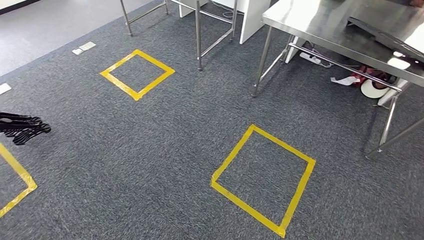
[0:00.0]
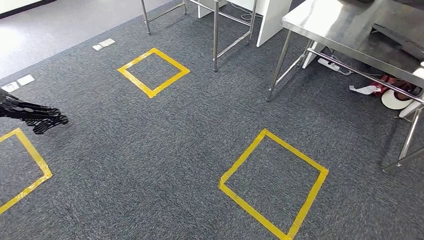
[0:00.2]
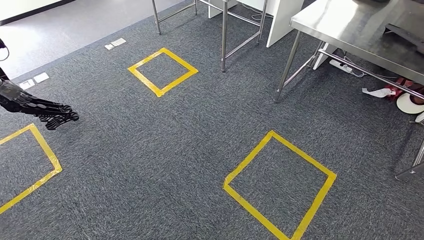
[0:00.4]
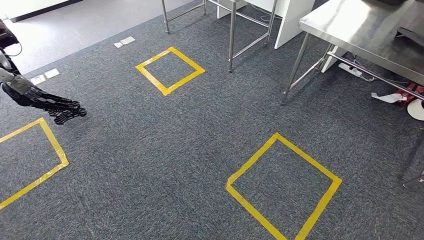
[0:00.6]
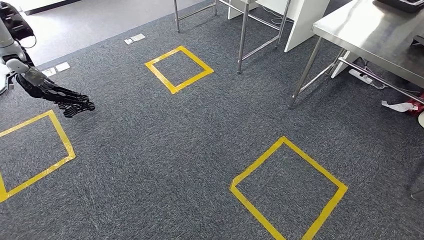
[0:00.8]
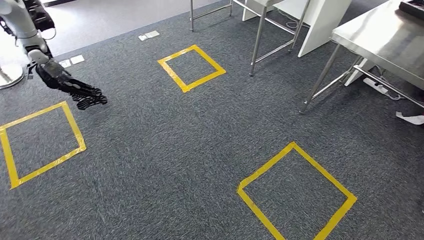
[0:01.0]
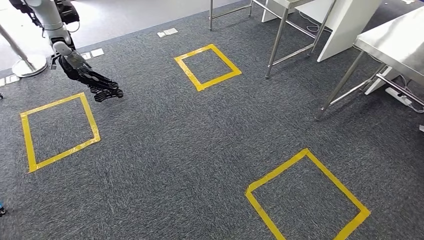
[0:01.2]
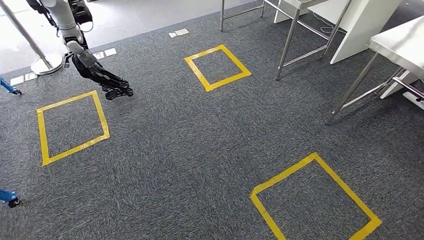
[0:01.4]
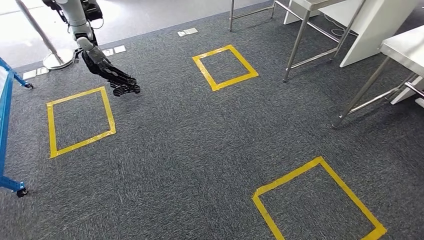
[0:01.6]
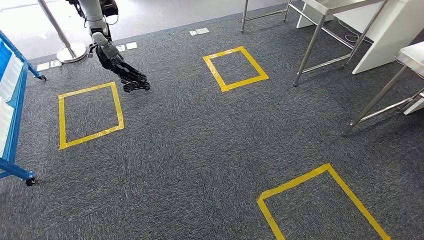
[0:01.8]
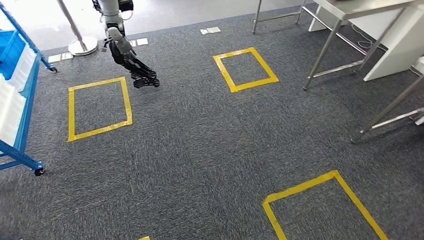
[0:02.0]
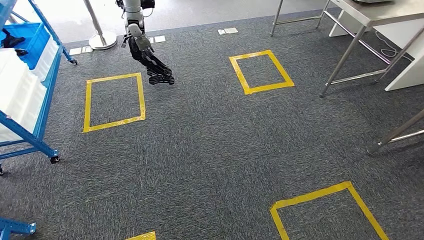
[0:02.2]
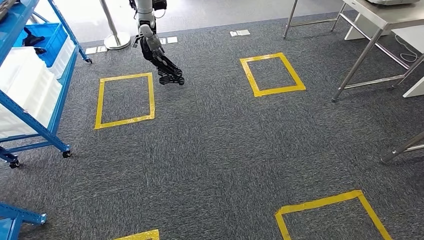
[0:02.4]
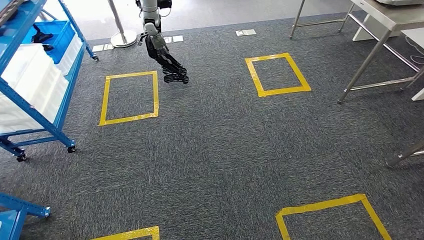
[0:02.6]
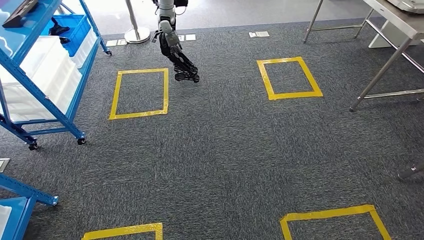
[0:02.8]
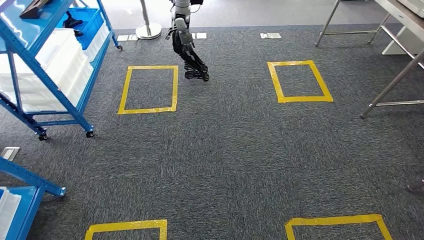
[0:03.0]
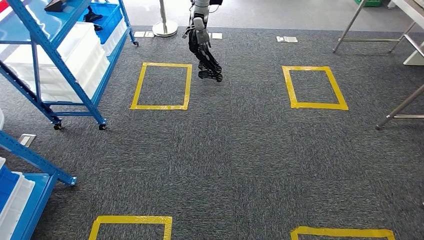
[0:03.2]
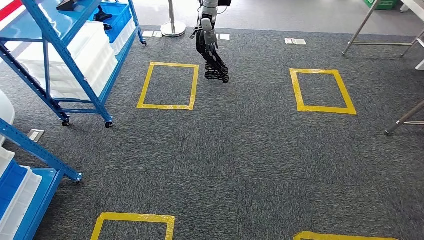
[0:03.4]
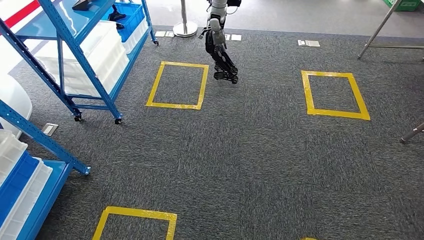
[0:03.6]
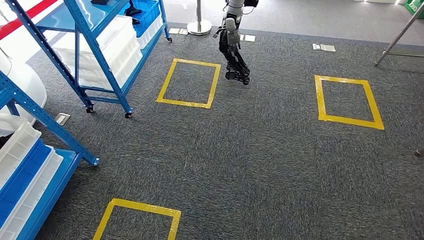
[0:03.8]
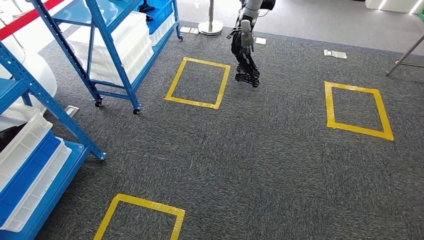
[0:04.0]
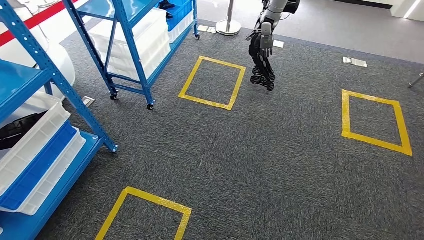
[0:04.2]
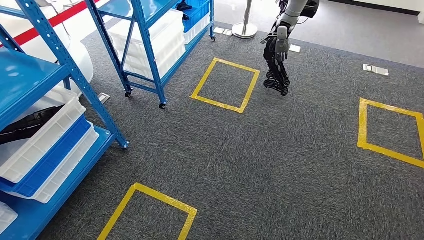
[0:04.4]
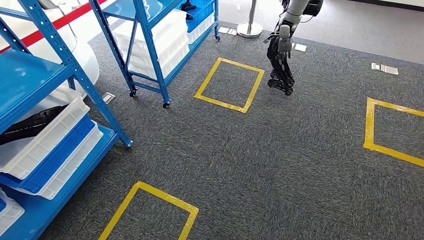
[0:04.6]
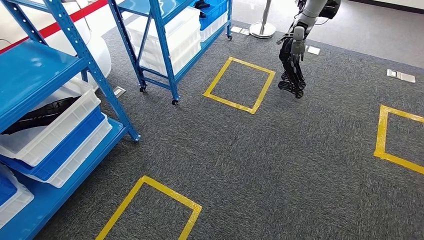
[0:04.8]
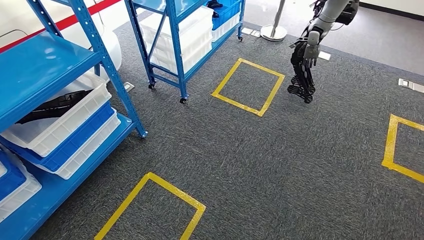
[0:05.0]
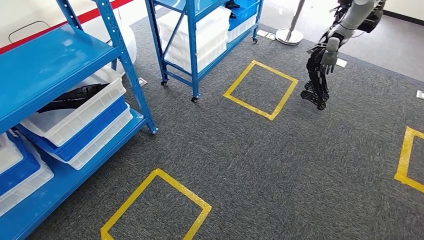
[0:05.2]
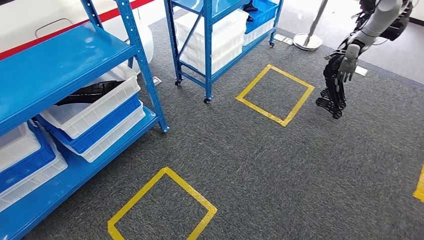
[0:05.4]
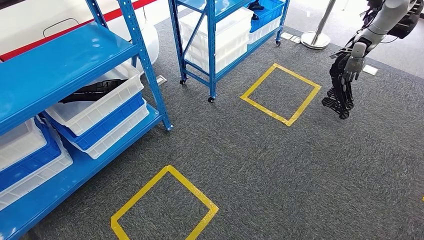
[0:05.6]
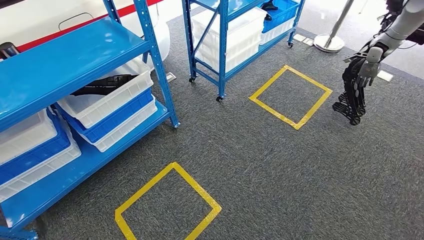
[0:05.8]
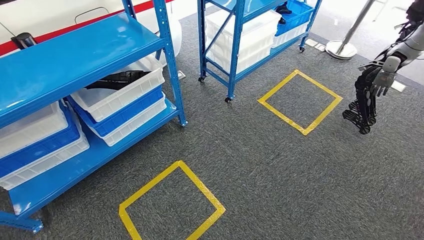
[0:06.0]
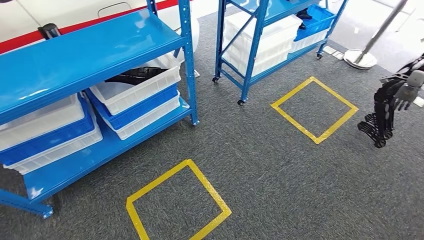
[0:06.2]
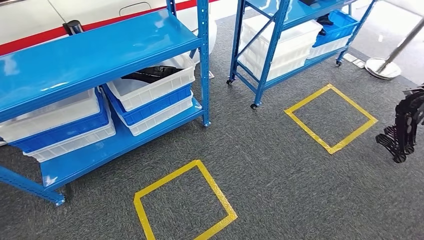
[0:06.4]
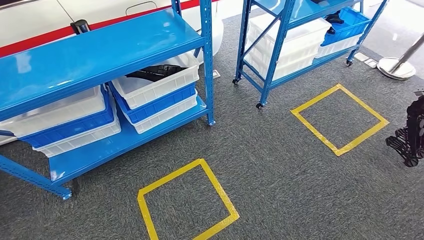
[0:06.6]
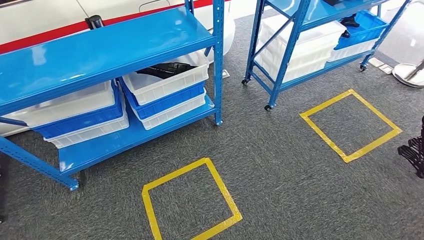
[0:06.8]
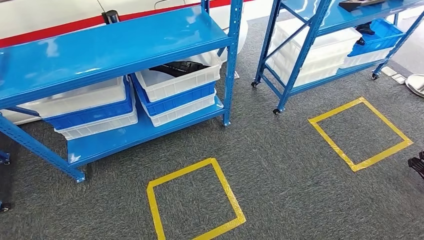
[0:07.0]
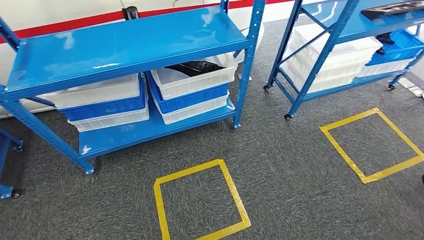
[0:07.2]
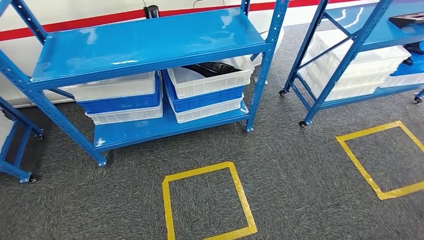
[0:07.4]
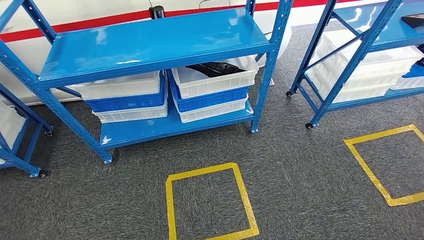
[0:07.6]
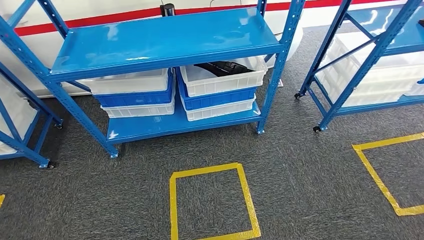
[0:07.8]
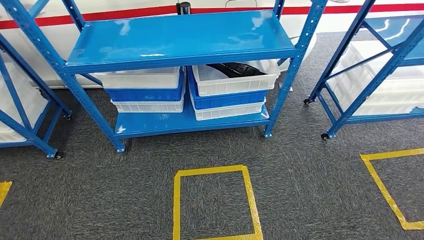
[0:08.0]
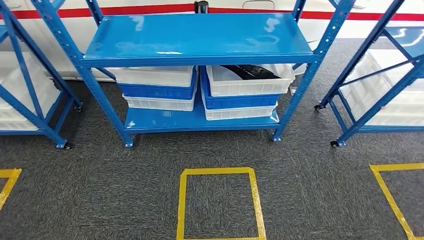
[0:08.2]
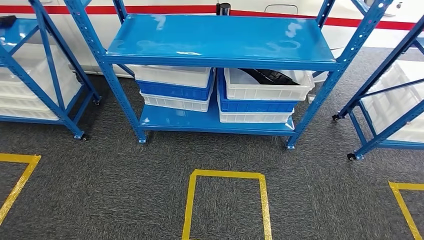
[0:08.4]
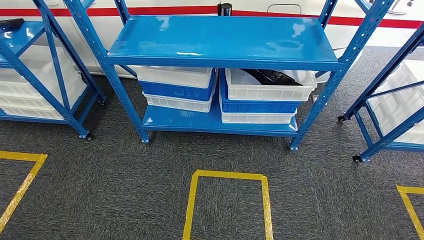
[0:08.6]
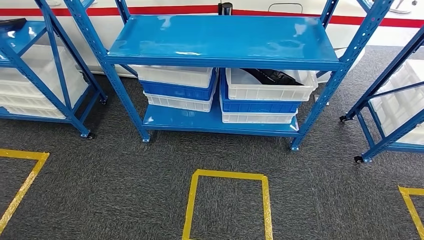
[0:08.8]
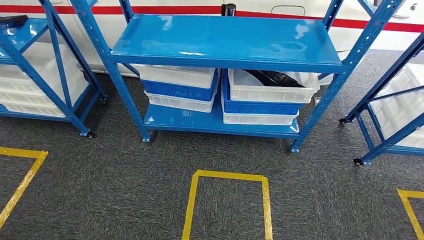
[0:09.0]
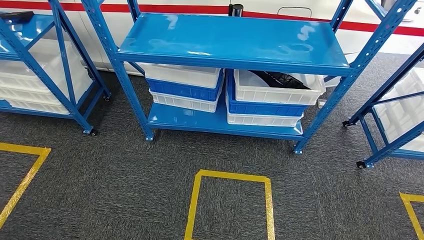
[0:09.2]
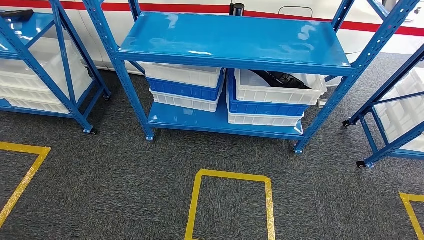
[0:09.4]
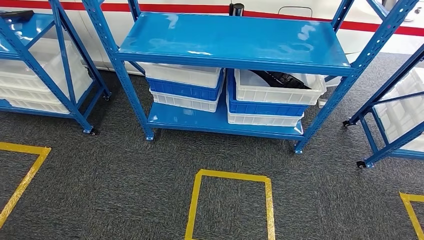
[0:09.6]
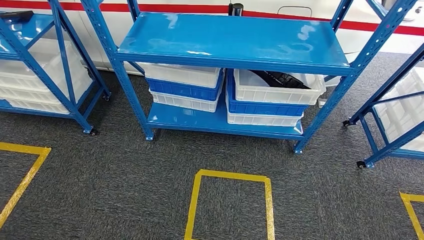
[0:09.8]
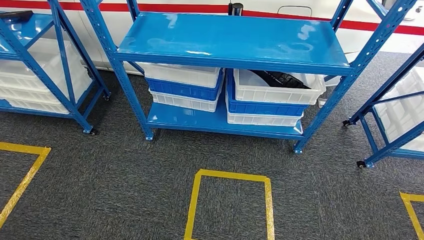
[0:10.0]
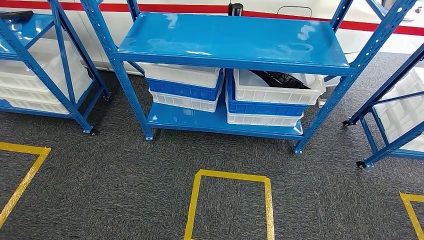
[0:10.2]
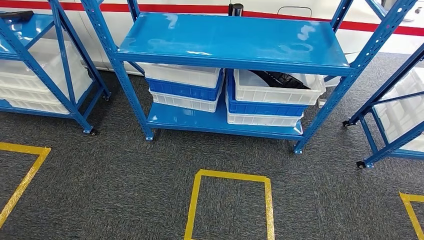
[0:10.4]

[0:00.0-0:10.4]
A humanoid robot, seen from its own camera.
Step, 0:00.0 to 0:10.4: Move to the initial position of the shelf.

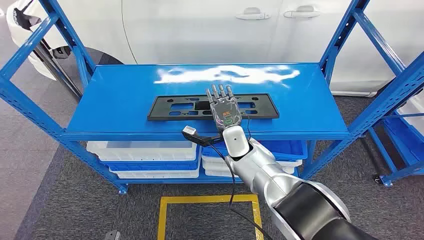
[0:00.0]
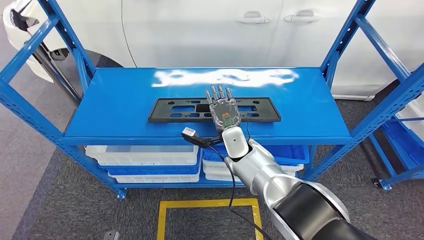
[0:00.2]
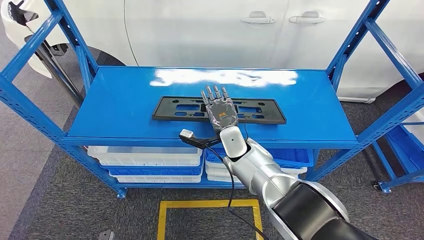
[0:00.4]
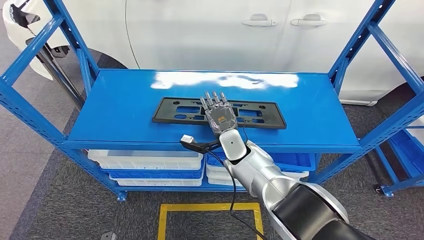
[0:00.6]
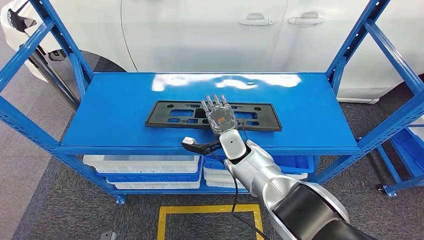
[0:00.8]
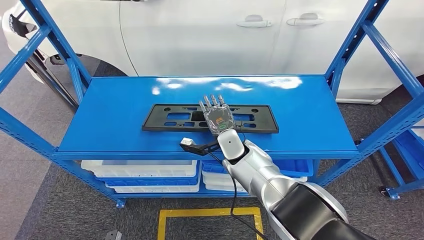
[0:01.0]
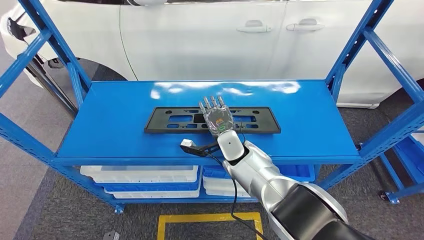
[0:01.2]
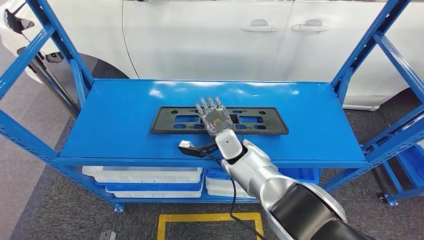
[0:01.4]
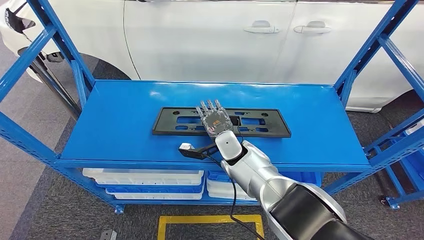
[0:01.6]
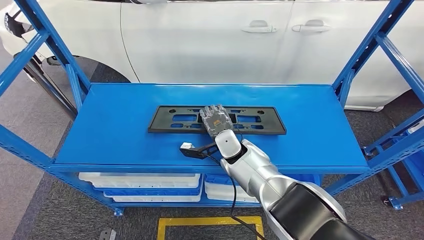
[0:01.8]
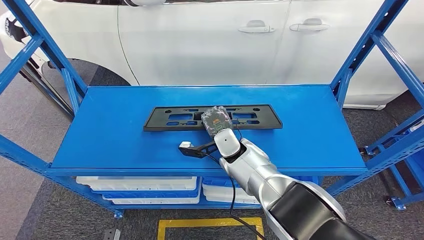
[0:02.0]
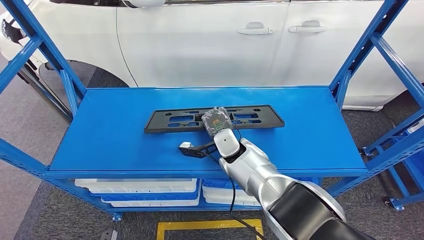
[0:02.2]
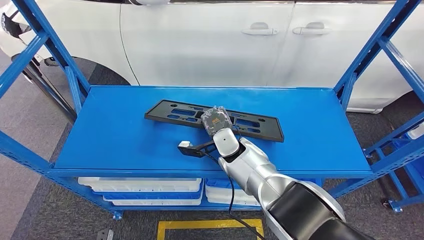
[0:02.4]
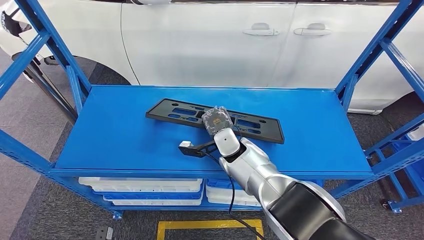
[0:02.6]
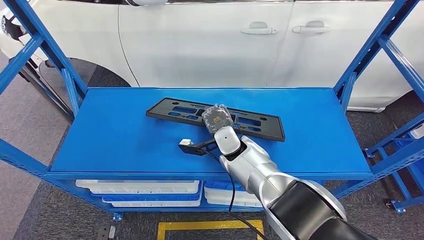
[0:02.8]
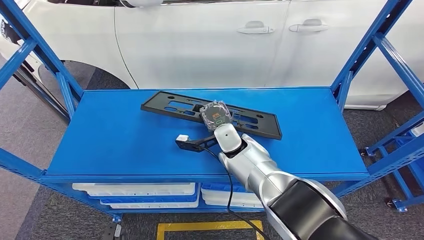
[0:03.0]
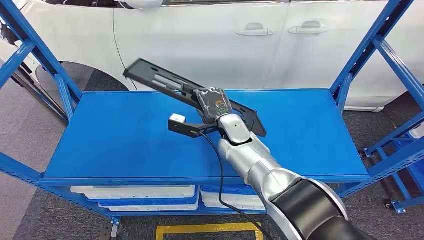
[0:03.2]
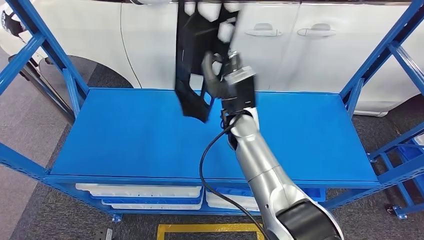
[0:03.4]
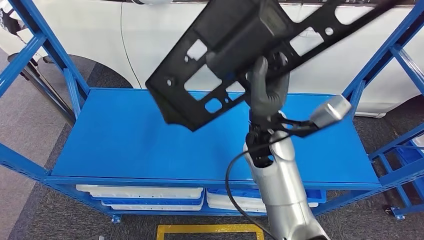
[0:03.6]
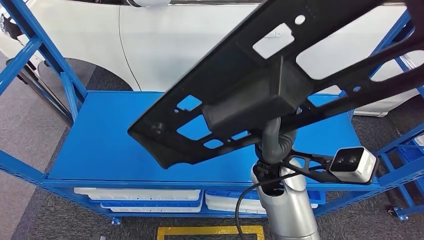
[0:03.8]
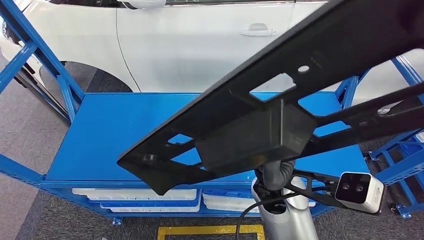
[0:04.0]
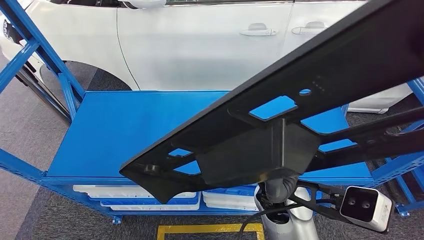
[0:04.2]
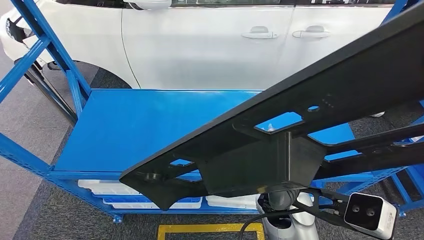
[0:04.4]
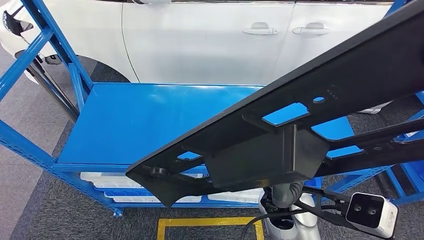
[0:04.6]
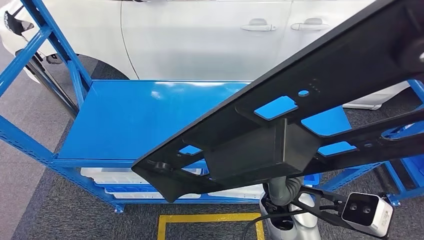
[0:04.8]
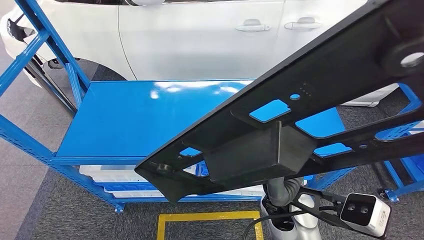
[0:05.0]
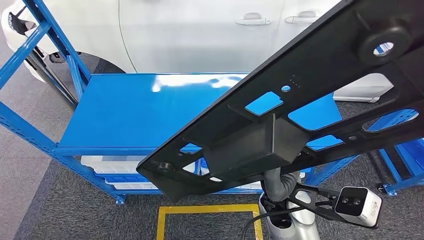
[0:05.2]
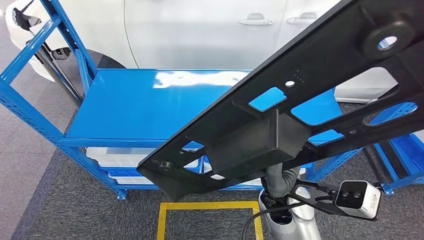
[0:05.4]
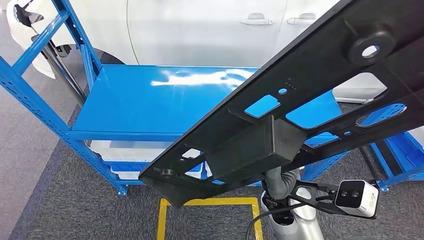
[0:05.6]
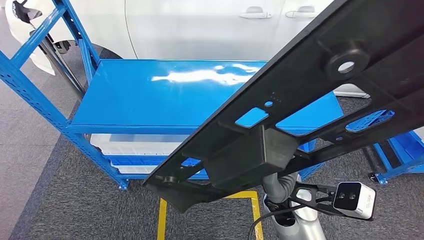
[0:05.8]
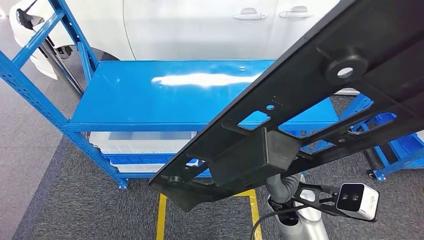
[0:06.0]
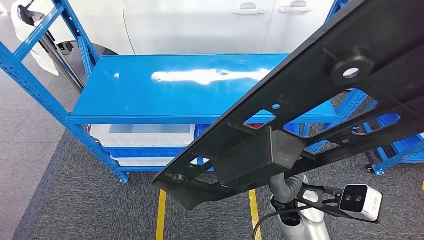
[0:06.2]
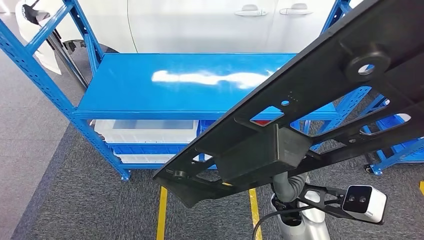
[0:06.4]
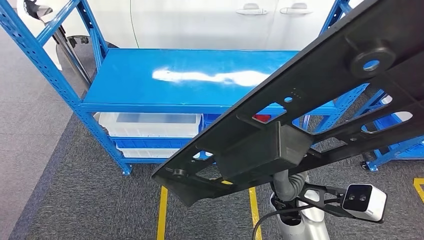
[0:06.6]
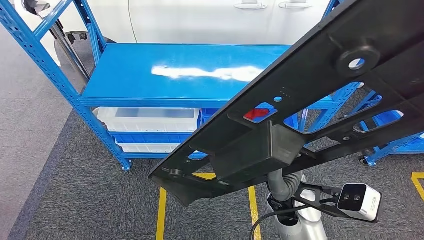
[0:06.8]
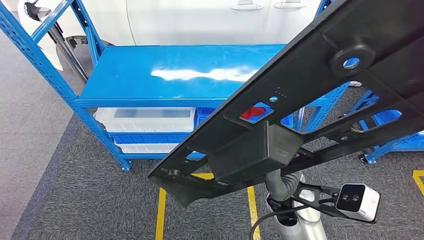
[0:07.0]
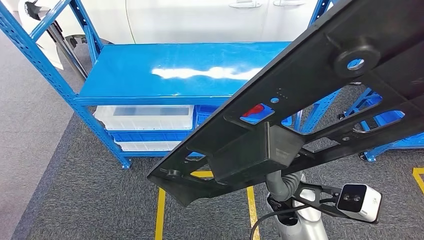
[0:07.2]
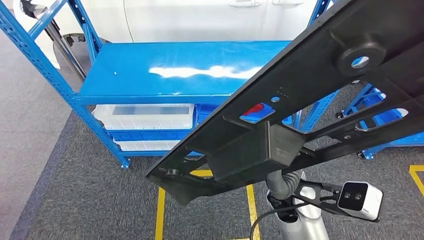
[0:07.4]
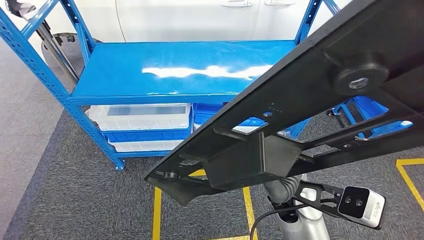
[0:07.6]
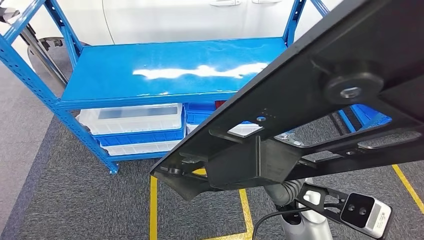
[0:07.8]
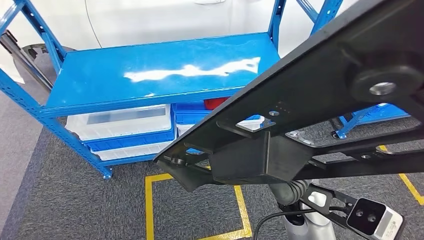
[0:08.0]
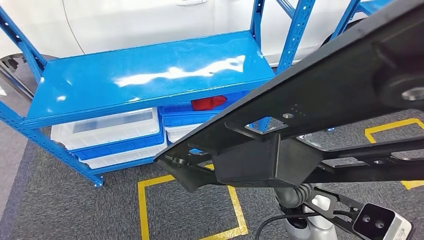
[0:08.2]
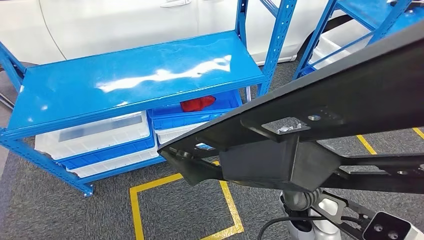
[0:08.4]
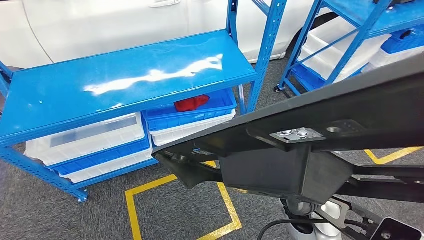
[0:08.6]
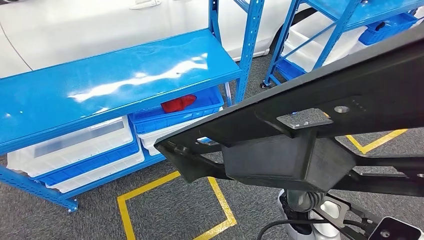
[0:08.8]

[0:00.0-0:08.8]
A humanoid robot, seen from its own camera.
Step, 0:00.0 to 0:03.6: Pick up the large material from the shelf.
